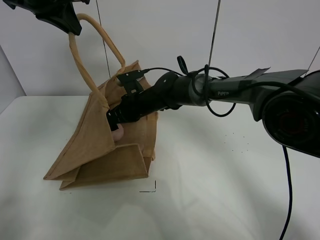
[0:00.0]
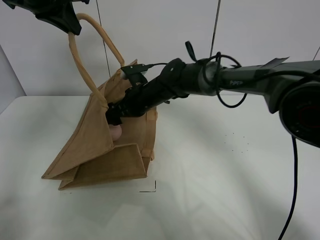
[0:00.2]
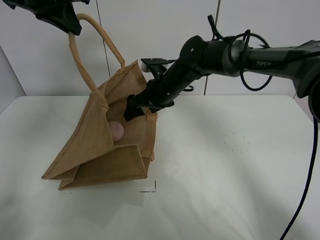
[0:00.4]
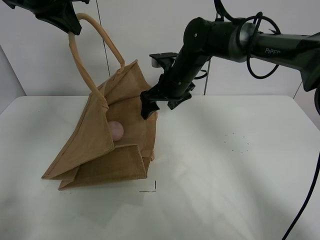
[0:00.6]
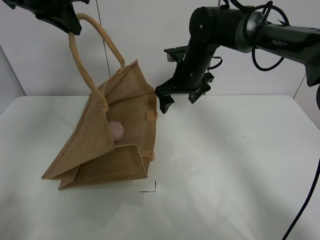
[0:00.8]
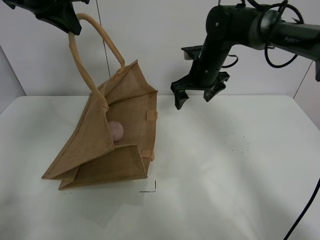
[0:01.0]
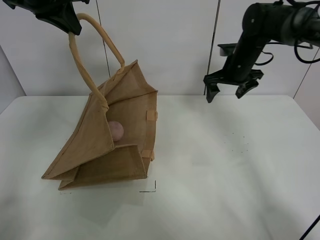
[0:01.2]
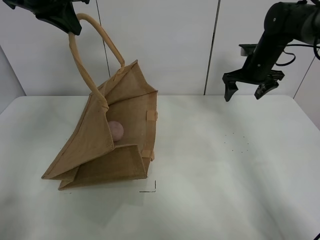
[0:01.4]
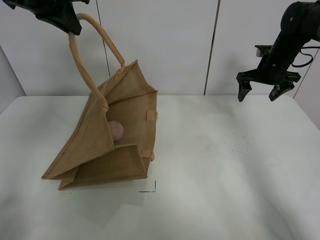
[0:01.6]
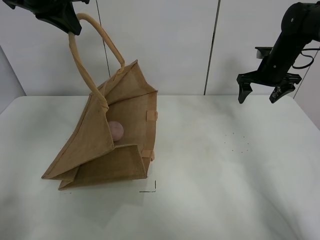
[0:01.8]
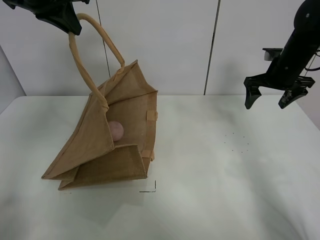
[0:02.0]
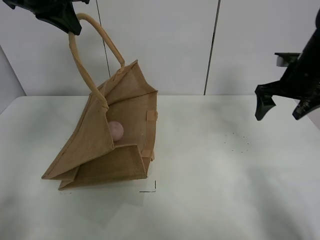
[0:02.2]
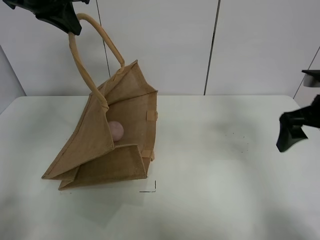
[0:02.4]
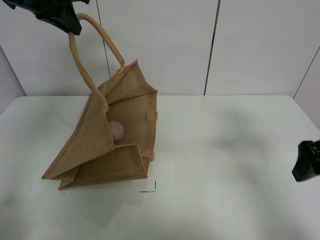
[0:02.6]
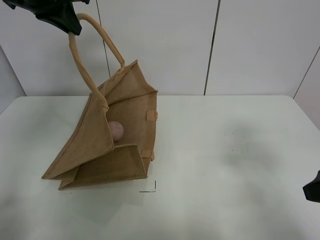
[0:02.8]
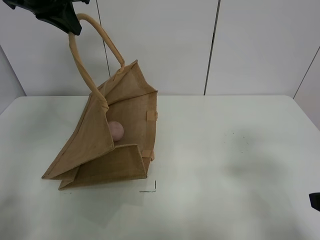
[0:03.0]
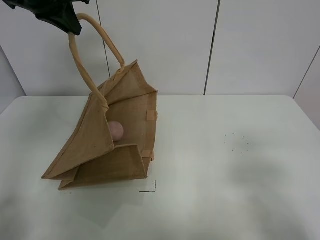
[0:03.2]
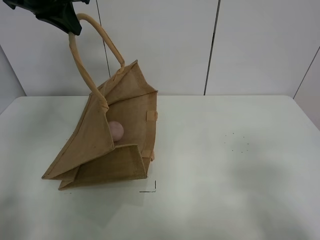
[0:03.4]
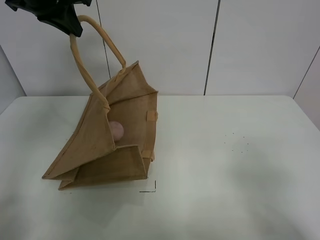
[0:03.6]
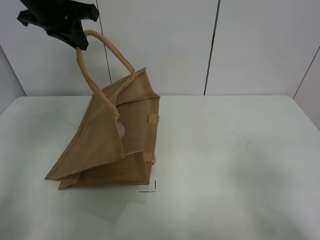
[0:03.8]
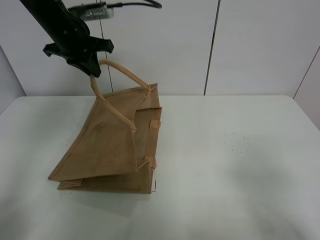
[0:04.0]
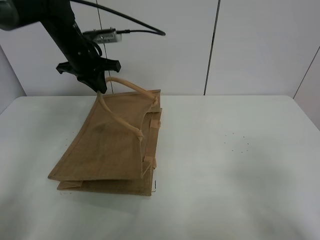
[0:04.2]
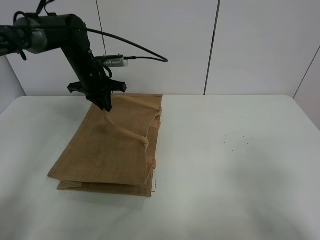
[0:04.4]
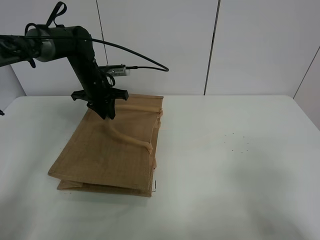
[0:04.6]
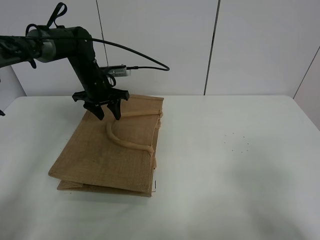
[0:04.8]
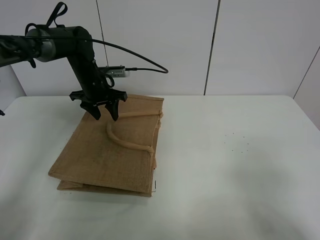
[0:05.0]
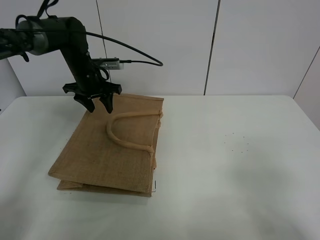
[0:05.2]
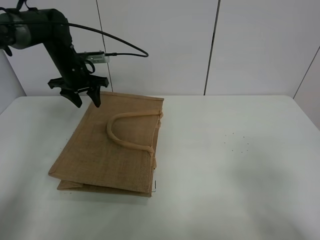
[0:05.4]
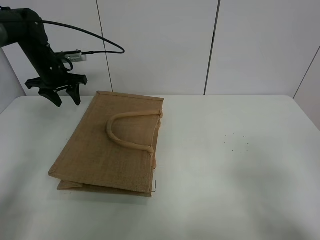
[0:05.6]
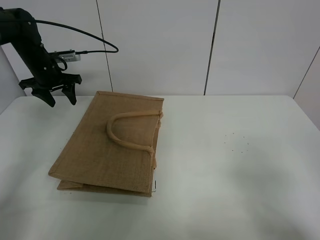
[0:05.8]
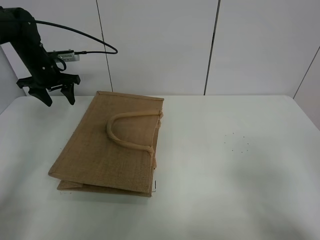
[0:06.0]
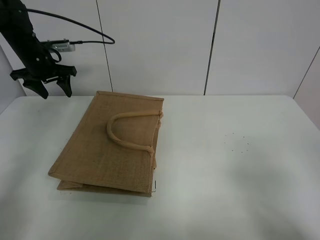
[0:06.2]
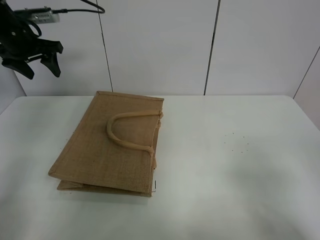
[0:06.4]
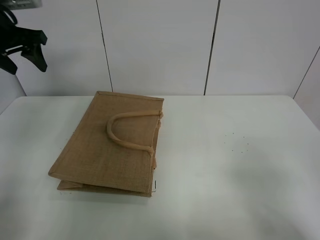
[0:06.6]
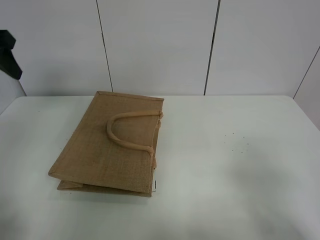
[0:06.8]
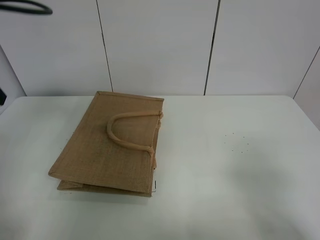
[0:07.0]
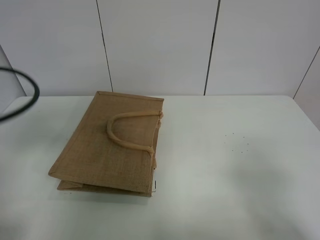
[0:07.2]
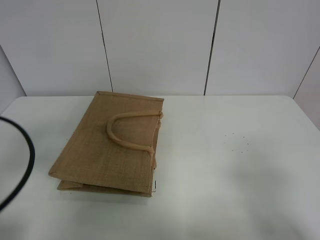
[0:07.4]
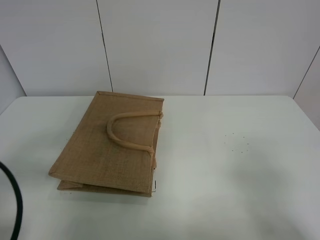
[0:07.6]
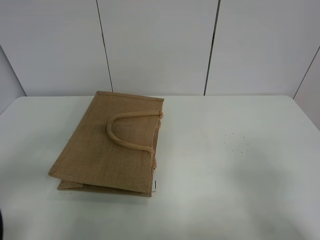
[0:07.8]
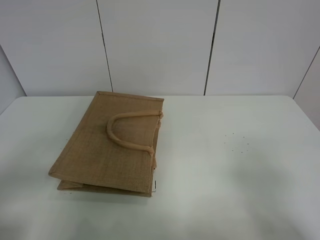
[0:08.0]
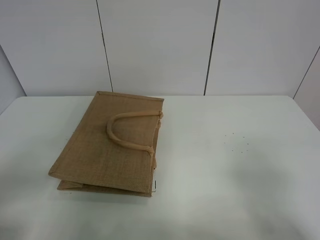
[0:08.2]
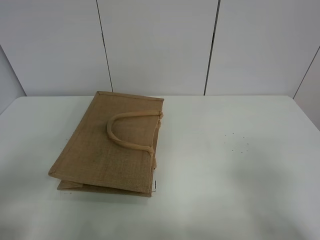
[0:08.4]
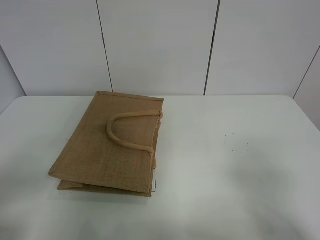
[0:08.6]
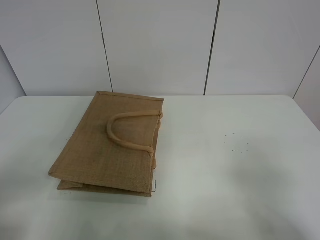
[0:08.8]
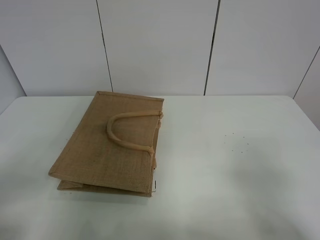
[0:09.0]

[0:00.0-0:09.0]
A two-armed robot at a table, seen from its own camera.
Task of the whole recording: open the brown linen bag and put the peach in the bag.
Step, 0:00.8 to 0:05.4: Put down the handbag with left grippe.
0:00.0 to 0:01.6: The right gripper heads to the right, covering about 30 cm.
0:01.6 to 0:03.0: The right gripper shifts approximately 40 cm backward.
0:03.0 to 0:04.4: The left gripper is displaced downward and forward by about 25 cm. Meanwhile the right gripper shifts roughly 5 cm backward.
0:04.4 to 0:06.0: The left gripper is displaced to the left by some 15 cm, and opens up.
0:06.0 to 0:07.6: The left gripper shifts about 40 cm backward.
0:07.6 to 0:09.0: The left gripper shifts roughly 5 cm backward.
